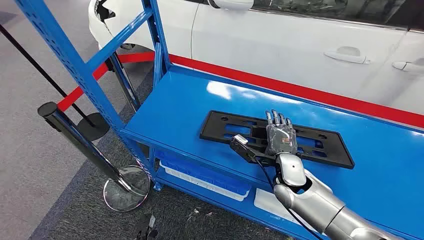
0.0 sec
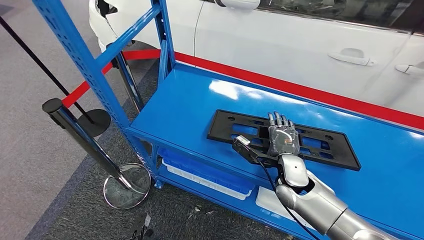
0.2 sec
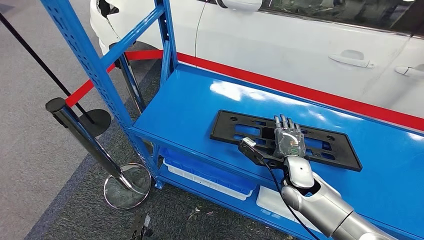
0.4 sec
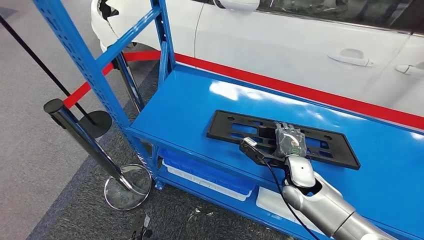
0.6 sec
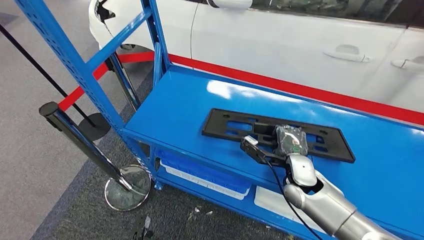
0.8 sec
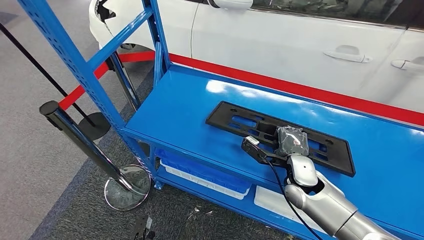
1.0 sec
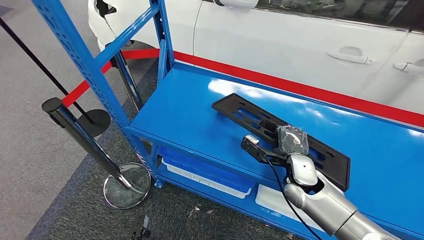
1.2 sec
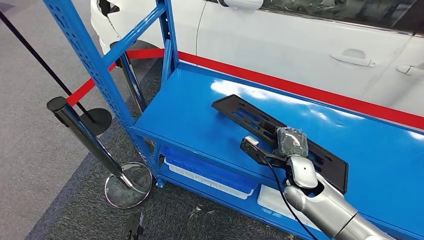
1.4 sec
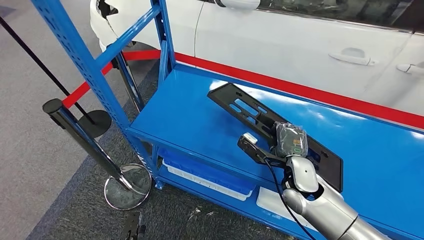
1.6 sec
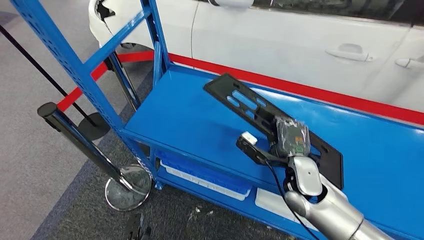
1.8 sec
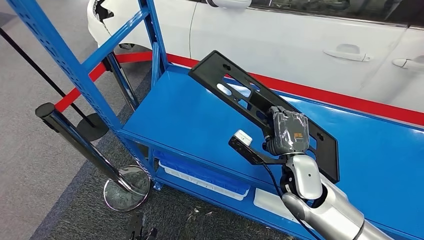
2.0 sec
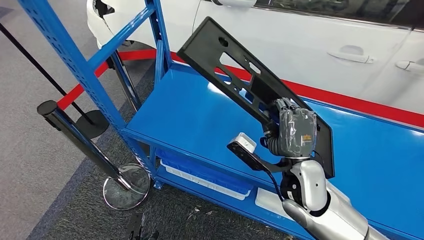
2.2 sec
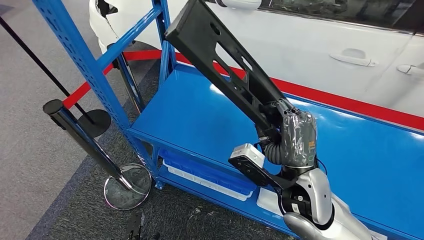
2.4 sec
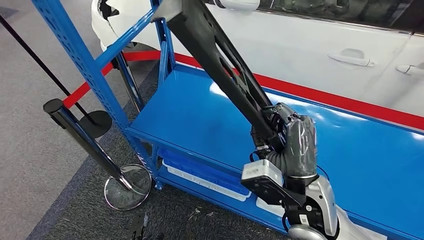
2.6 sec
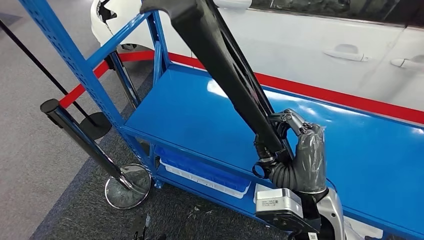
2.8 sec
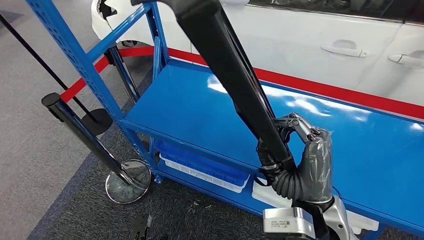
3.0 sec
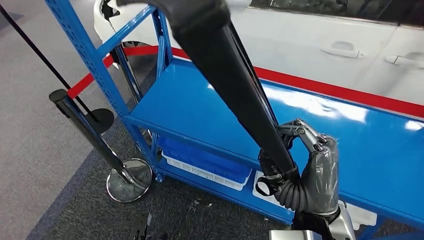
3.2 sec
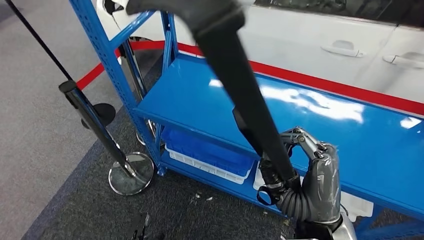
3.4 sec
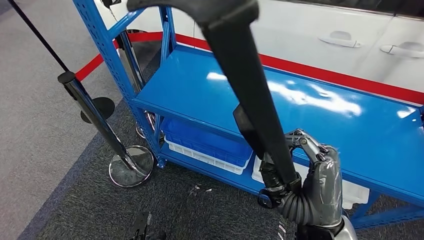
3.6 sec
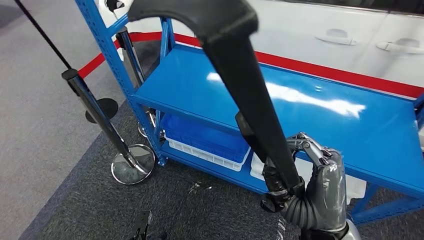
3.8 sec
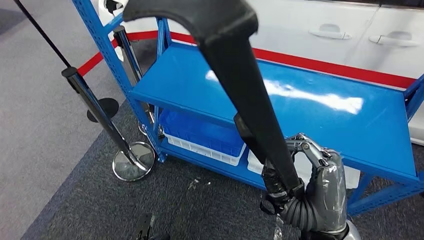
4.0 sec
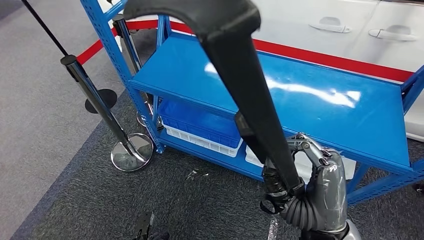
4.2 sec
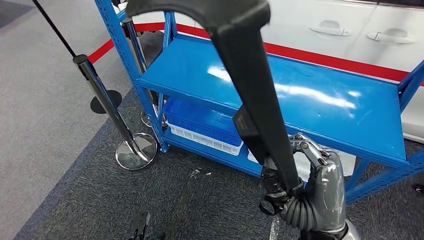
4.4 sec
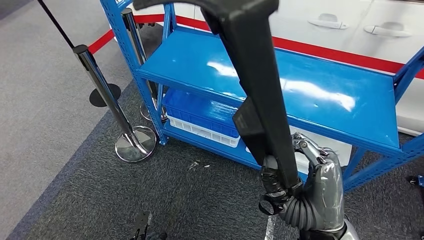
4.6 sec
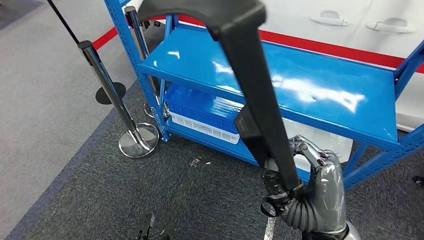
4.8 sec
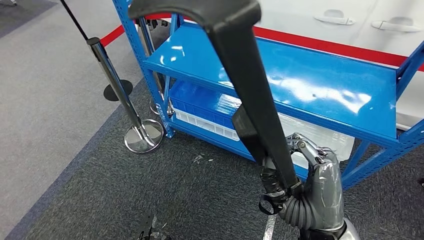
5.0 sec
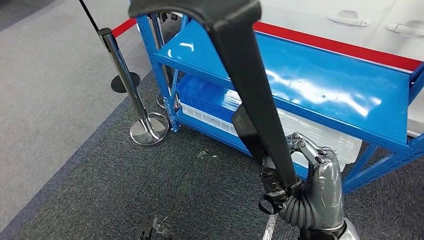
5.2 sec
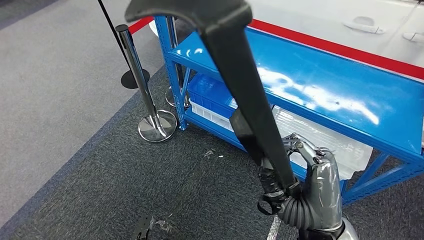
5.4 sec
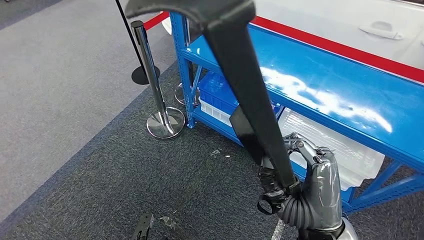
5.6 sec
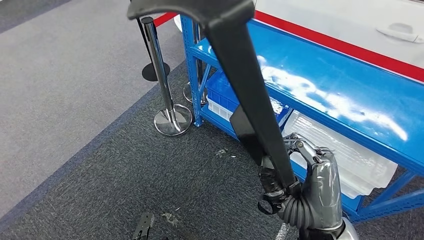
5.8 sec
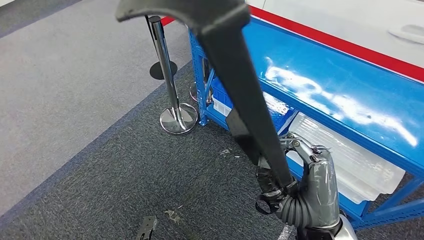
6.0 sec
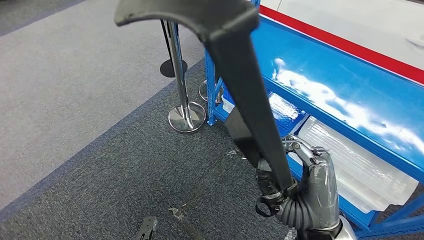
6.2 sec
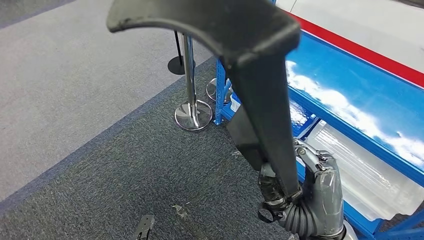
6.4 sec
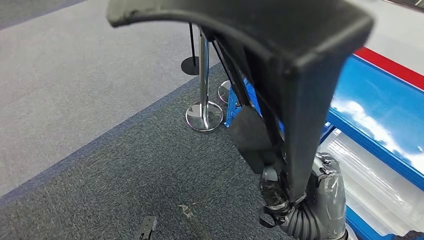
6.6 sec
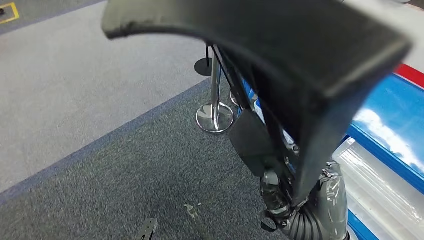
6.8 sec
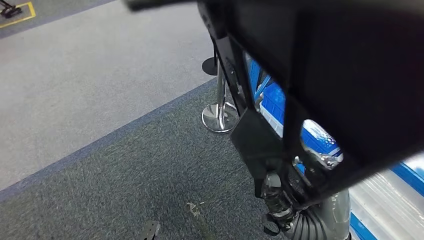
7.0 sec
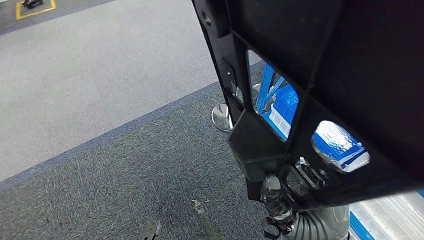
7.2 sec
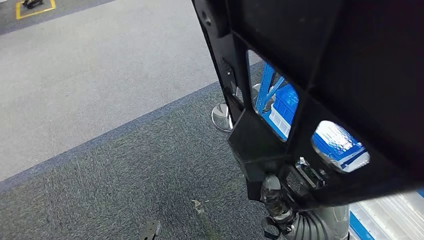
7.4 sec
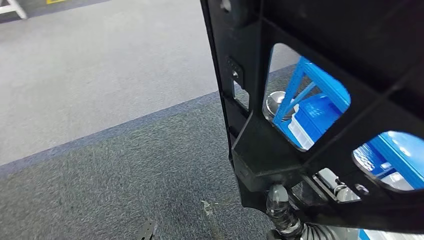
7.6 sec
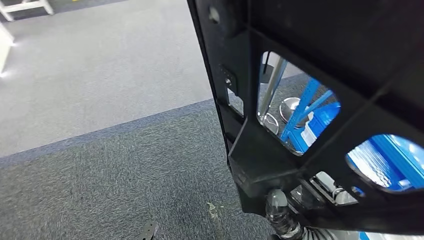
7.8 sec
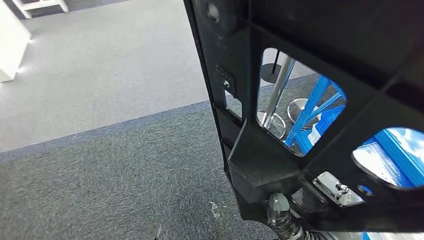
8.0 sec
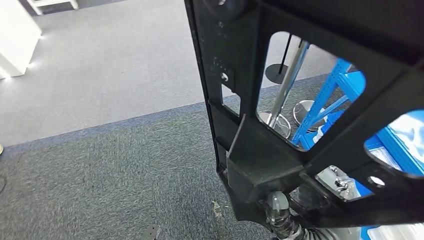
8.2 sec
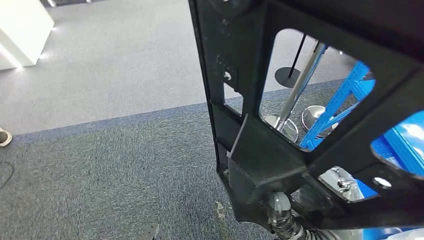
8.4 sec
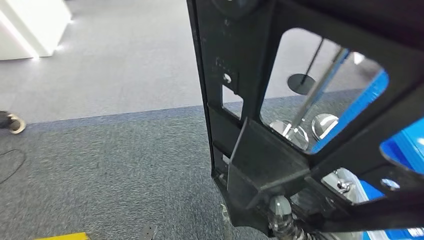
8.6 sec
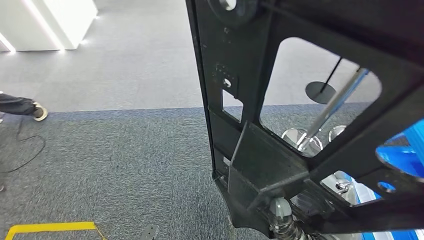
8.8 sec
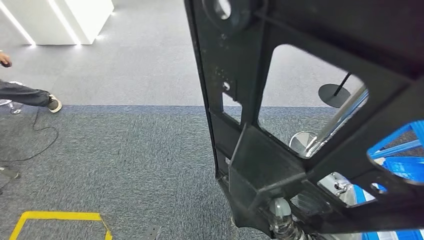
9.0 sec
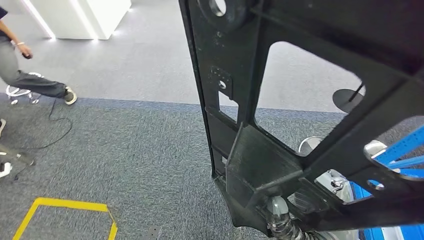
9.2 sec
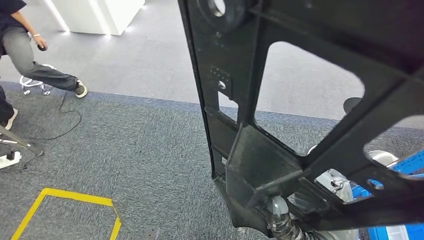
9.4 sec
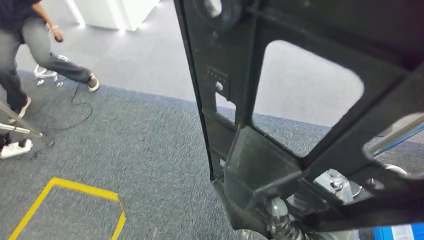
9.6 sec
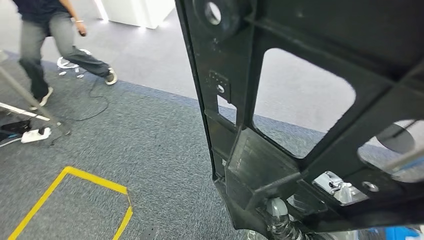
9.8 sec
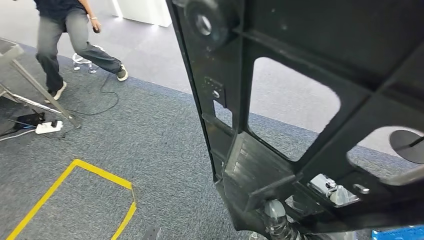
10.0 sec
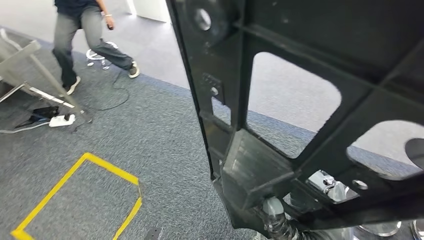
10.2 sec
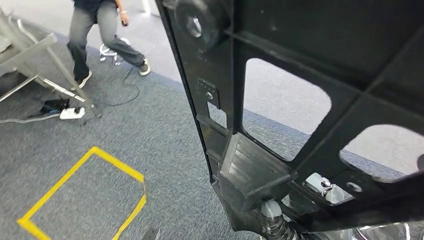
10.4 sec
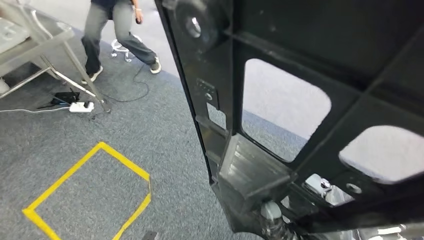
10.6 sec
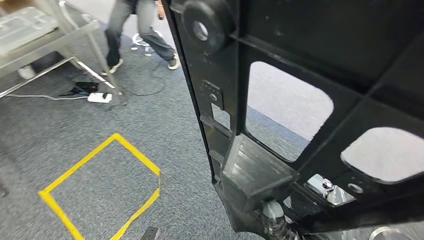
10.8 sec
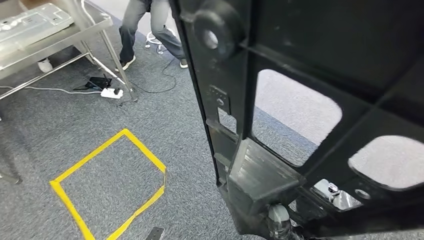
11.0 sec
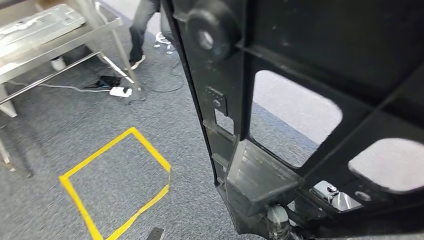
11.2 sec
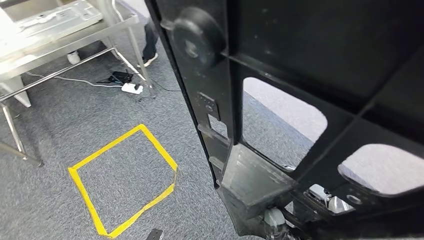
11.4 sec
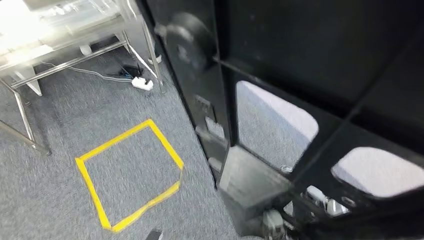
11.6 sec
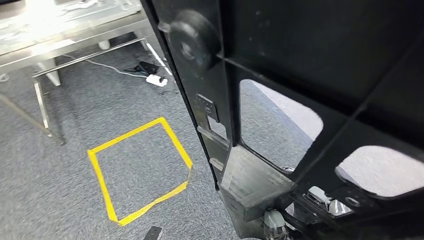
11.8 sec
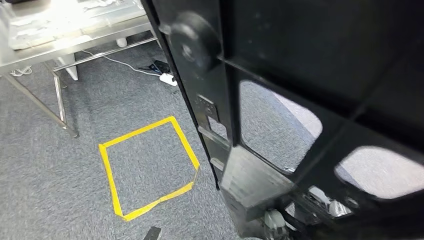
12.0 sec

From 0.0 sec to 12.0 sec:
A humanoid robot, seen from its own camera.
Step, from 0.0 sec to 4.4 sec: Pick up the large material from the shelf.

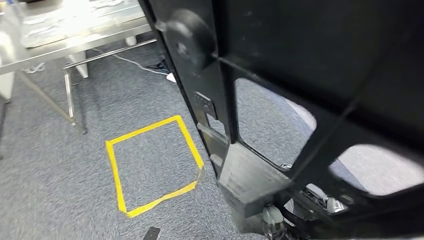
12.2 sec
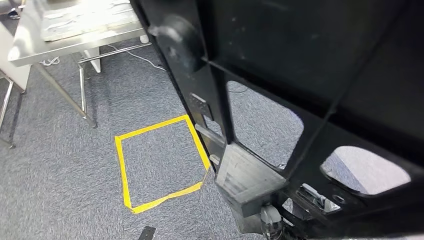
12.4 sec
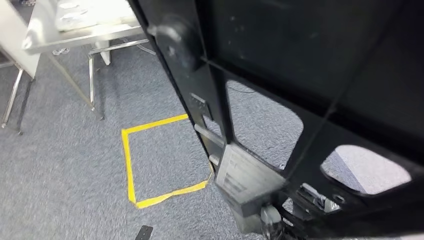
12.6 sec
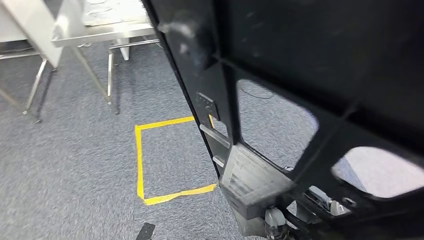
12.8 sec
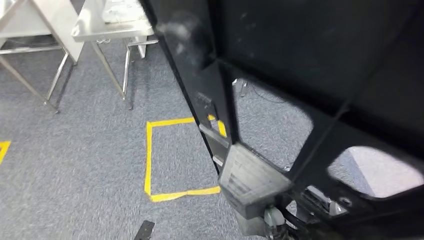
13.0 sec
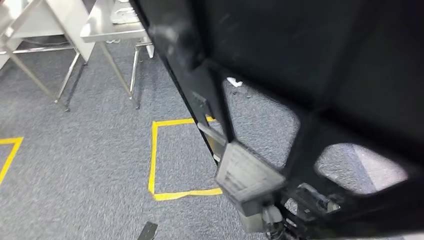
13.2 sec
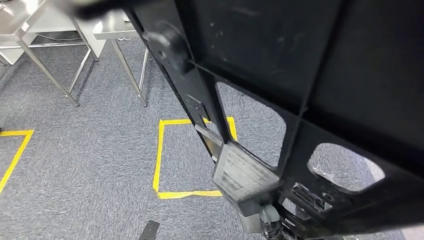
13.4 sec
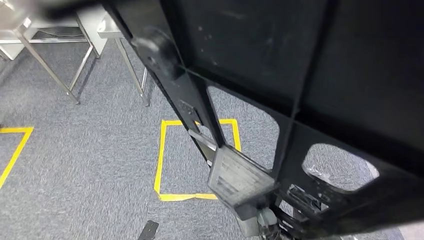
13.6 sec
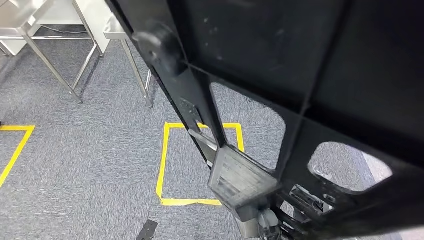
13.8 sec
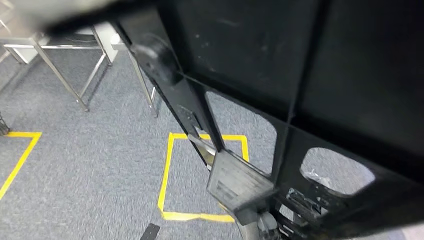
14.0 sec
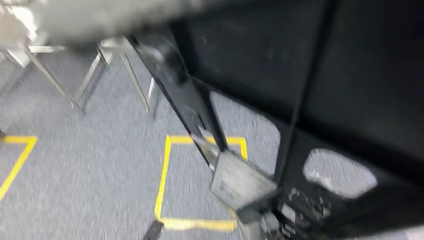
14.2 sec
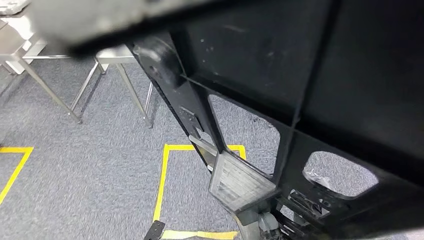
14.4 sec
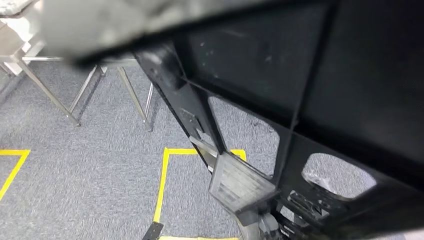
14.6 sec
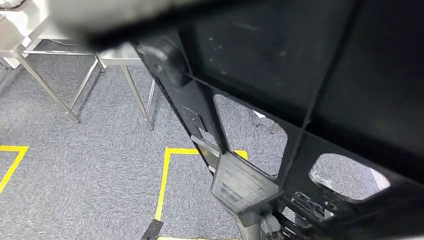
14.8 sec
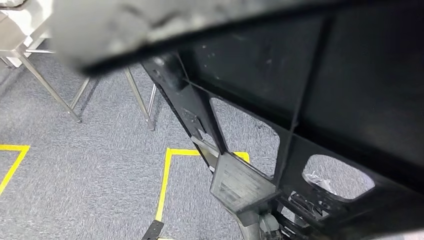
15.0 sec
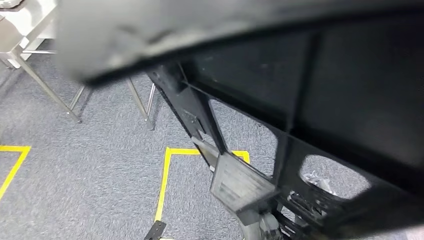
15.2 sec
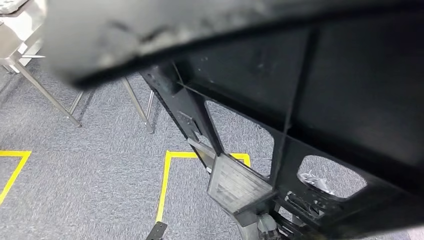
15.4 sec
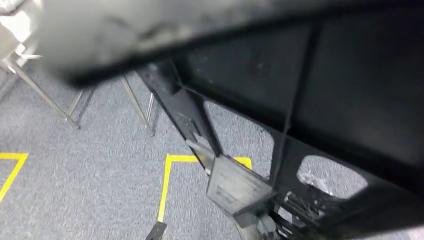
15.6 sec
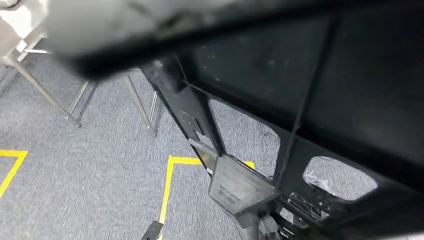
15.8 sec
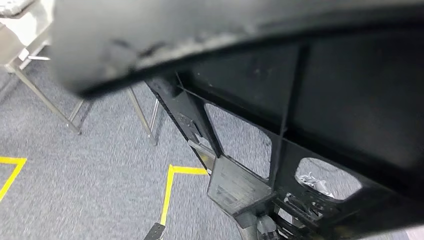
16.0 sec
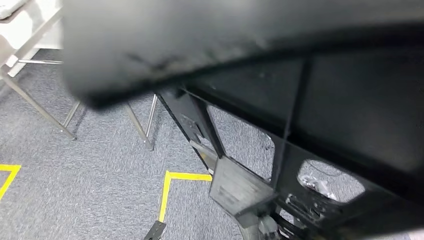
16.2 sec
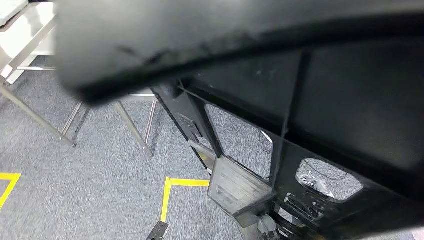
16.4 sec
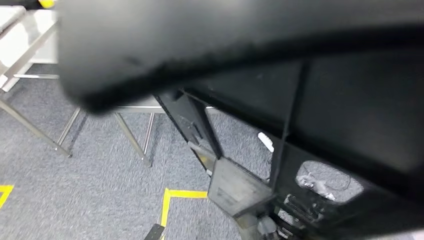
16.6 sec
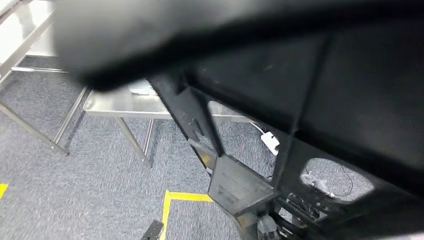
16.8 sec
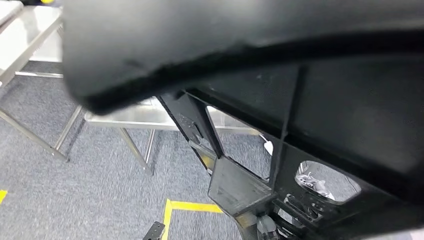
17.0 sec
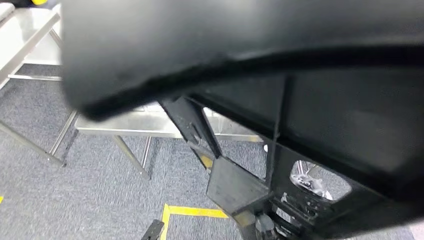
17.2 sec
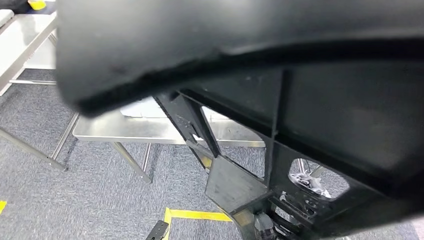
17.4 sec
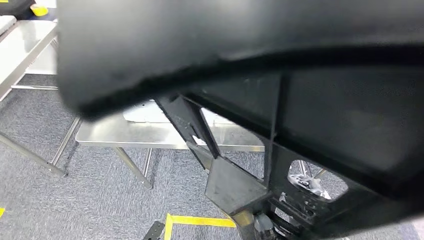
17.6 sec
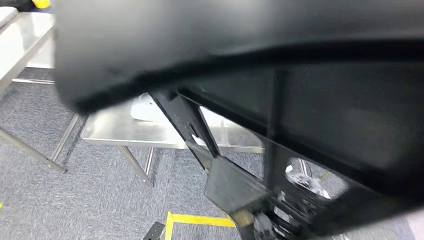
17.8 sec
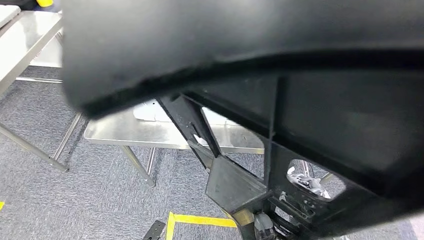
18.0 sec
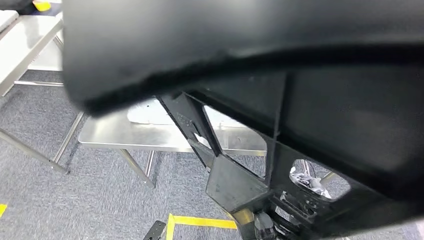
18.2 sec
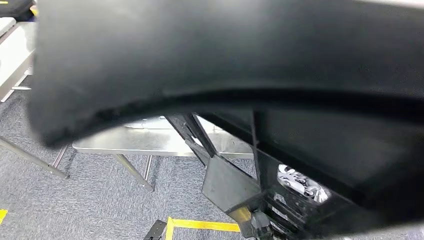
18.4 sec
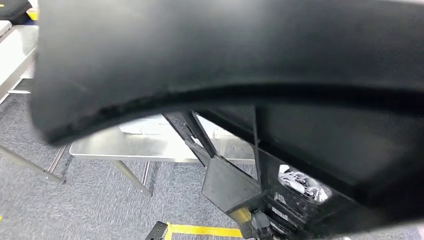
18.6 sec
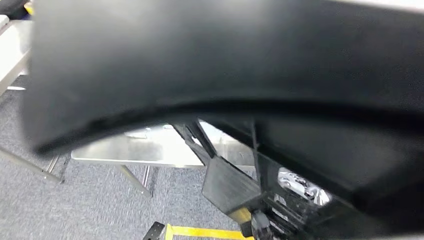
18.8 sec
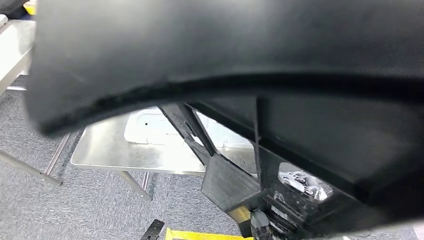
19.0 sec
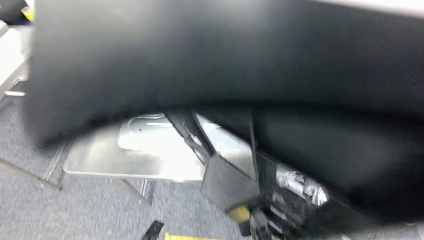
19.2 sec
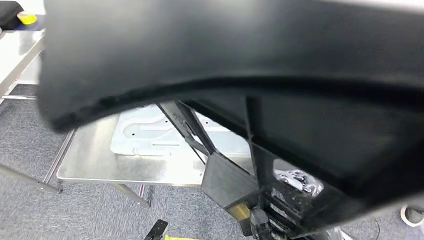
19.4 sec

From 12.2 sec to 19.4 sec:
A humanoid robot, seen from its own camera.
Step, from 12.2 sec to 18.4 sec: Move the large material to the front of the workbench.
